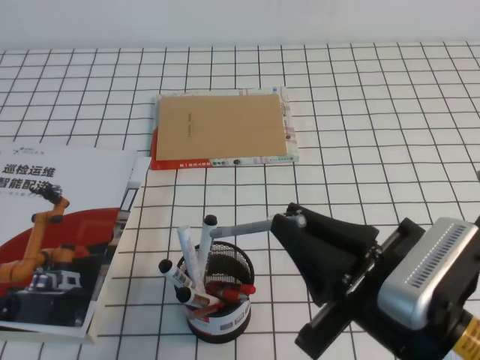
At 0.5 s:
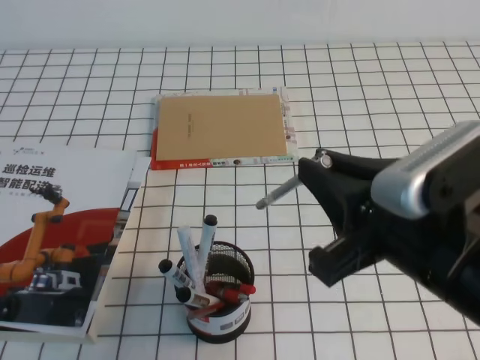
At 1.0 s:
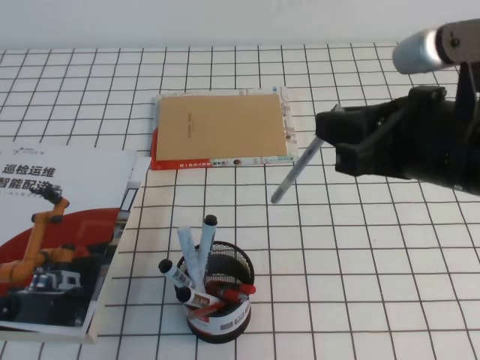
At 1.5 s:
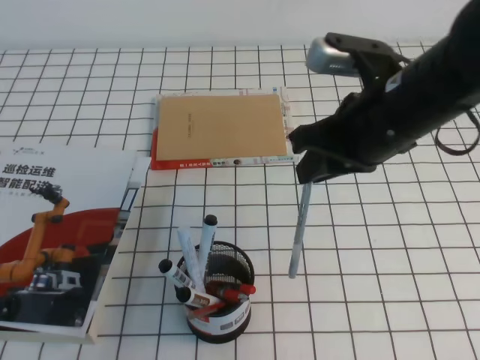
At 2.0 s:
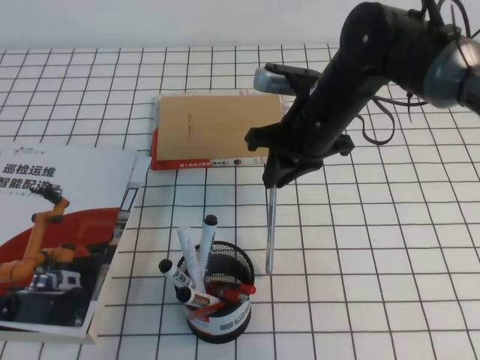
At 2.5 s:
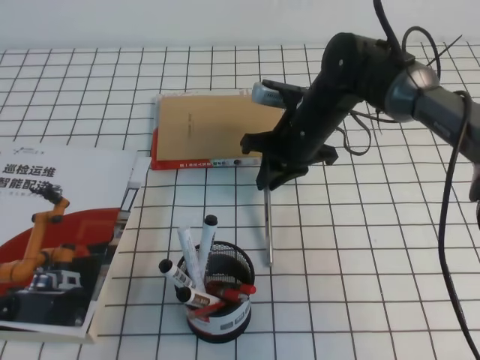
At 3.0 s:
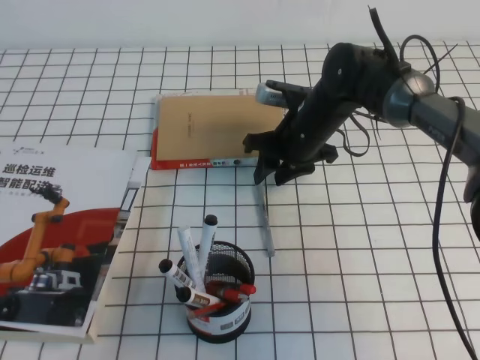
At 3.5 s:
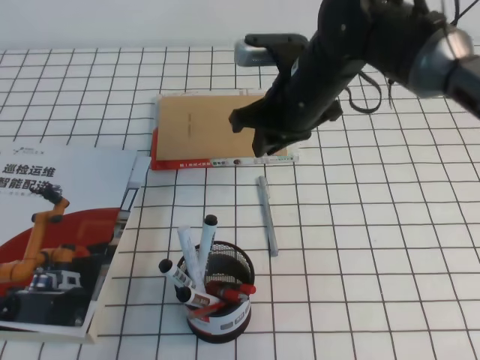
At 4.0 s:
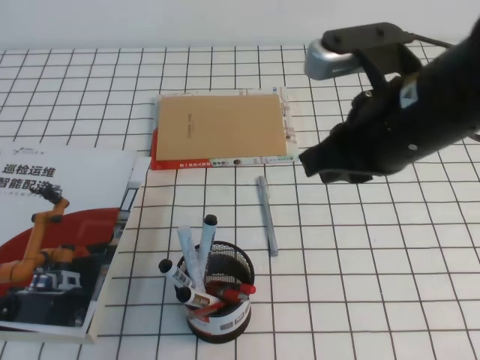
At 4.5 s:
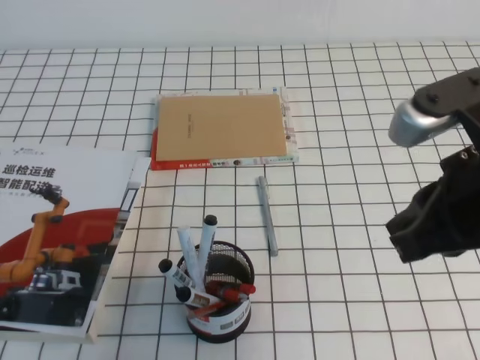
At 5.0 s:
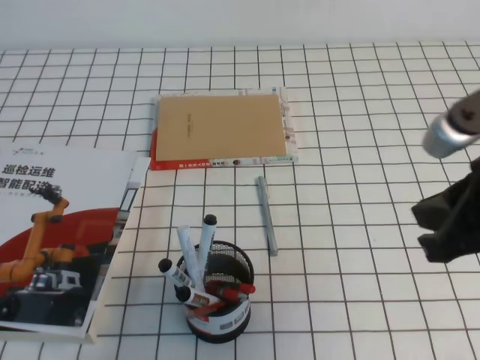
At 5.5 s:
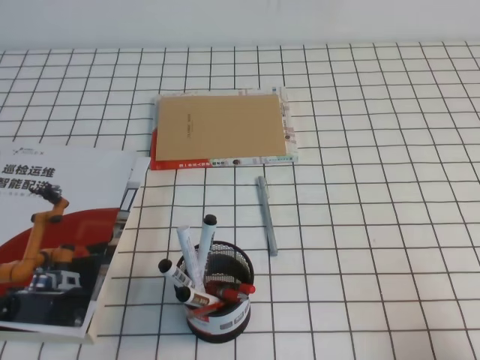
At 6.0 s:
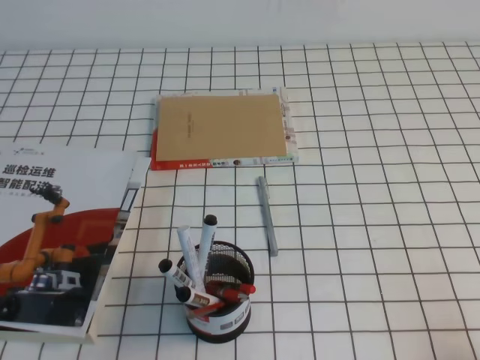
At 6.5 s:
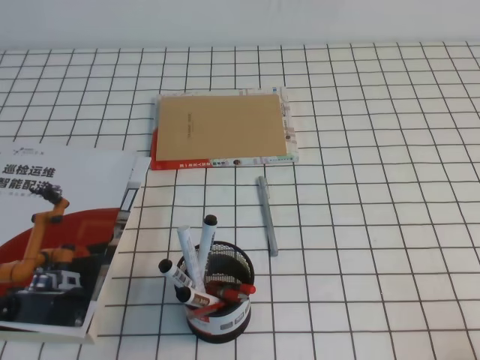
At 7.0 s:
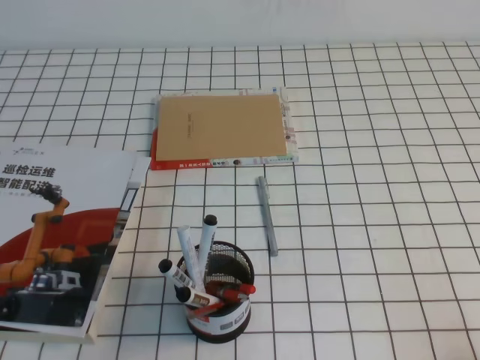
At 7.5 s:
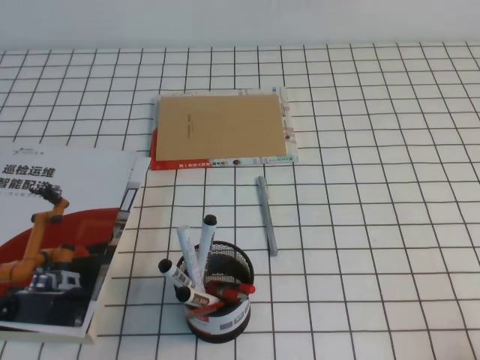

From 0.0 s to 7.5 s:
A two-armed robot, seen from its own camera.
Step, from 0.0 s to 7.5 s: Pick up the pen from the pen holder.
From 0.0 s to 2.0 s: The right gripper goes some 25 cm forward.
From 2.0 s to 4.0 s: The right gripper moves backward and upward, approximately 15 cm, and opens and closes again.
From 4.0 s to 5.5 s: The right gripper is displaced to the right, backward and downward by roughly 25 cm.

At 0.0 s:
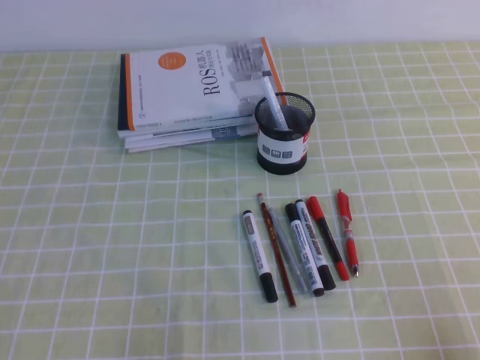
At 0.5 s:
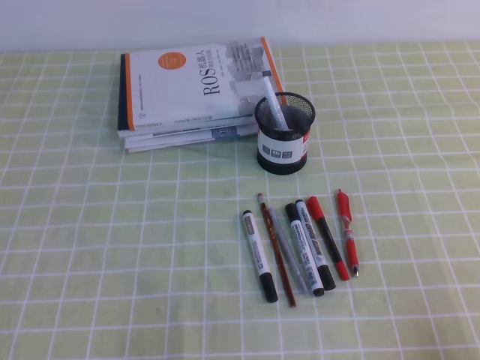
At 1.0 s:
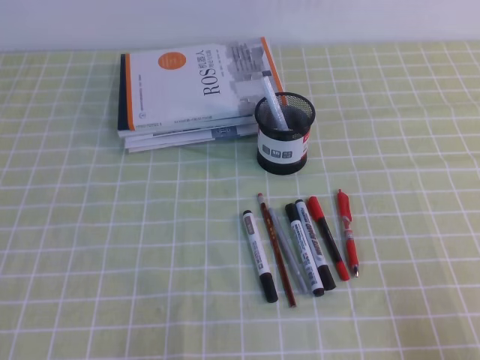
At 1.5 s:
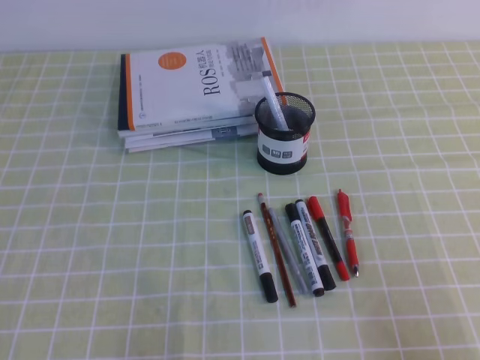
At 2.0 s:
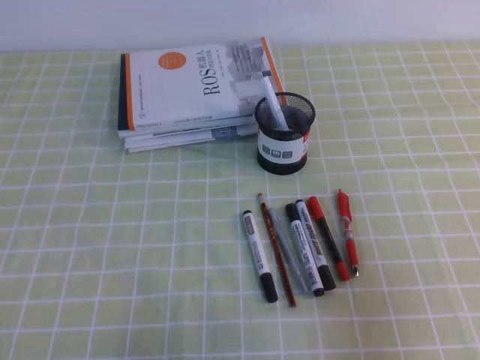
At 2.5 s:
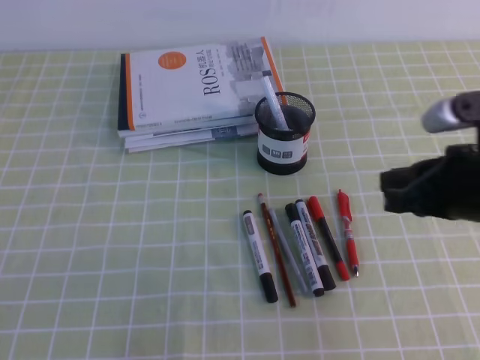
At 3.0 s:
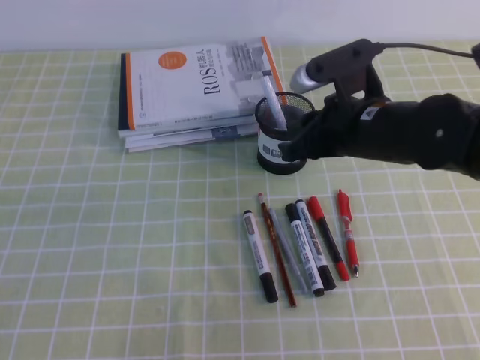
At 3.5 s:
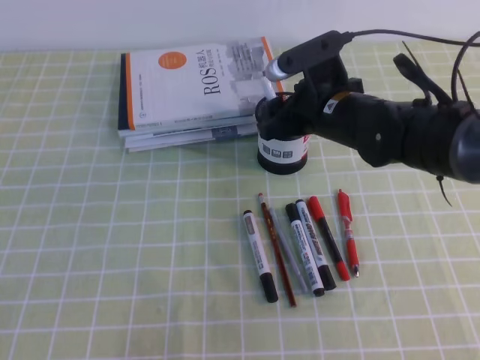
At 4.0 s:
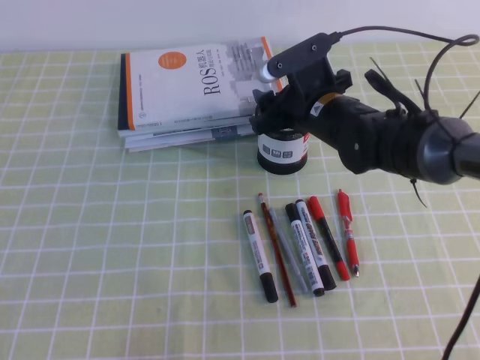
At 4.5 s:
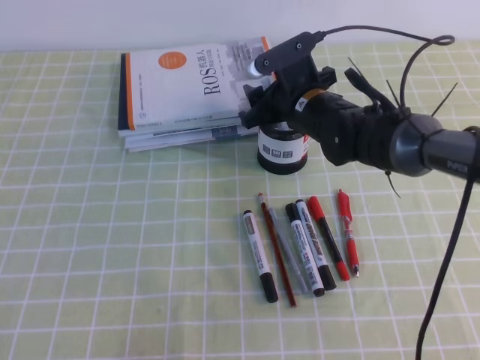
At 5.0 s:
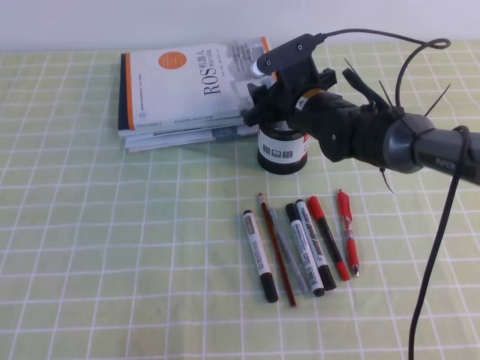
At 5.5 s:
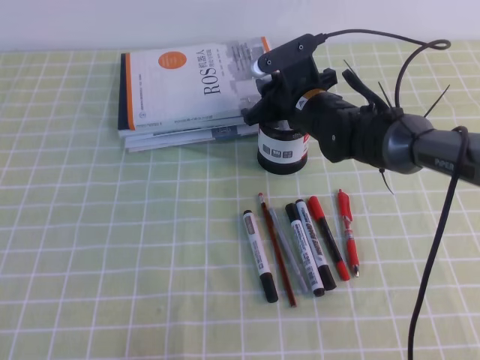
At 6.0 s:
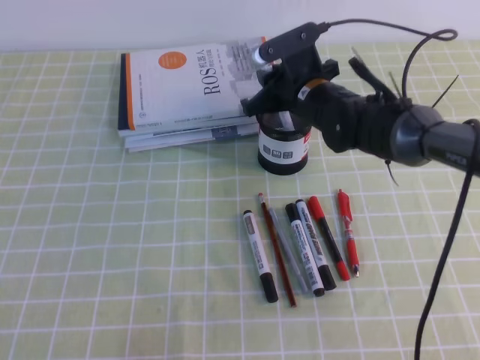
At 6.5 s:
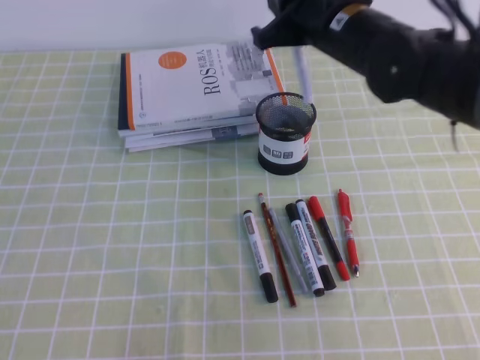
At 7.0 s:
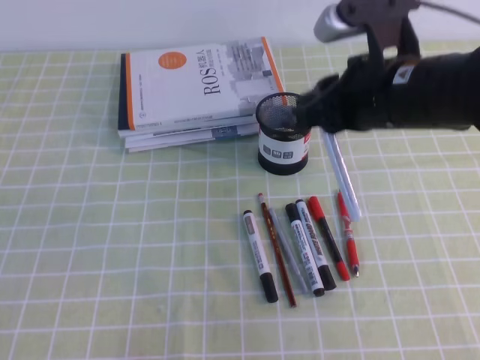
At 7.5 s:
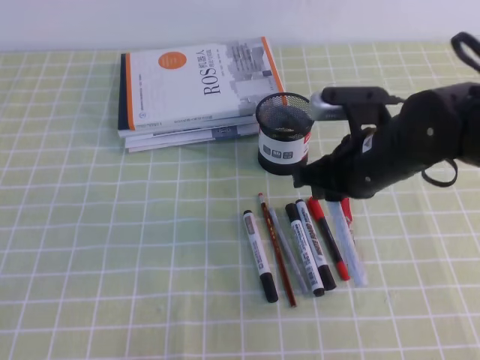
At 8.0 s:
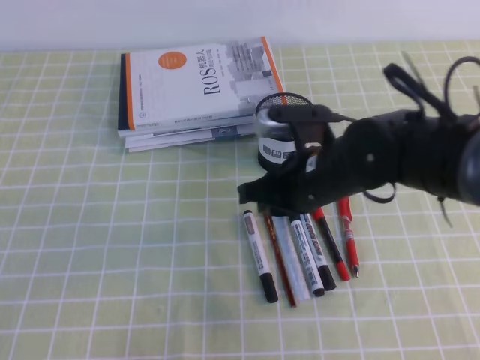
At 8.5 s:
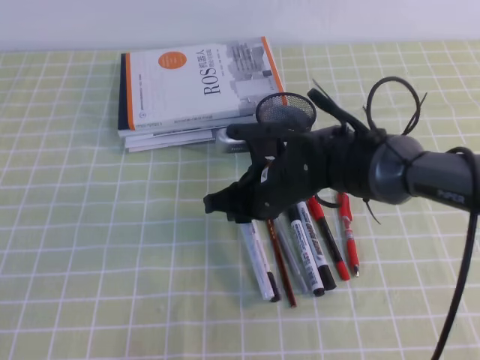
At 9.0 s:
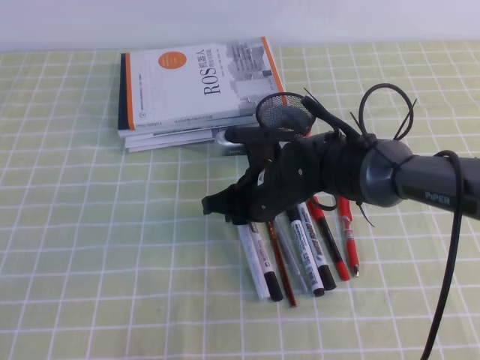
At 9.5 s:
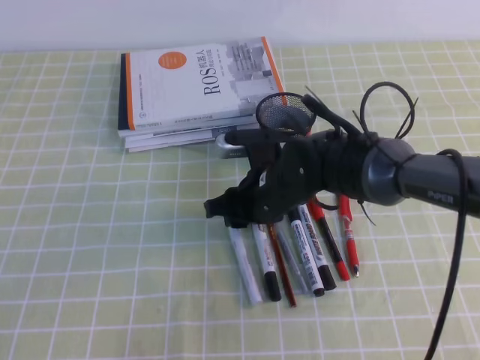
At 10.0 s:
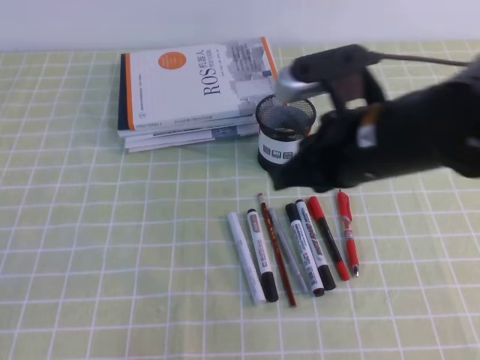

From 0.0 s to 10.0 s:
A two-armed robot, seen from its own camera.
From 0.0 s to 2.0 s: The right gripper is displaced upward and forward by roughly 10 cm.
From 2.0 s to 4.0 s: The right gripper shifts some 35 cm forward and to the left, and opens its fingers.
From 4.0 s to 6.0 s: The right gripper closes.
From 6.0 s to 8.0 s: The right gripper travels backward by about 15 cm.
From 8.0 s to 10.0 s: The right gripper heads upward, covering roughly 10 cm.

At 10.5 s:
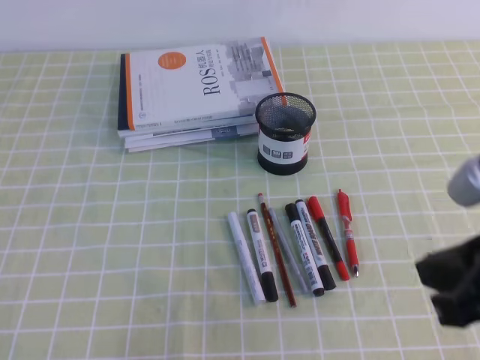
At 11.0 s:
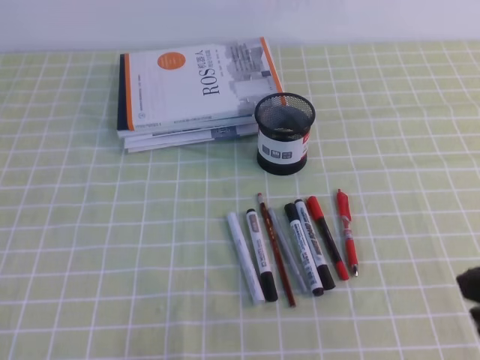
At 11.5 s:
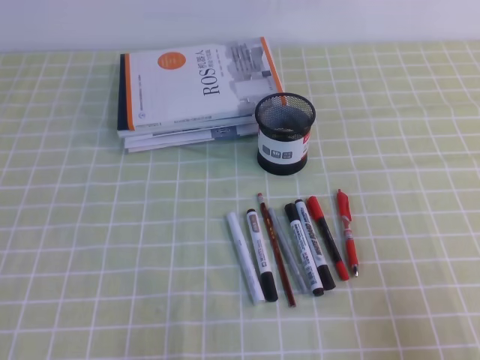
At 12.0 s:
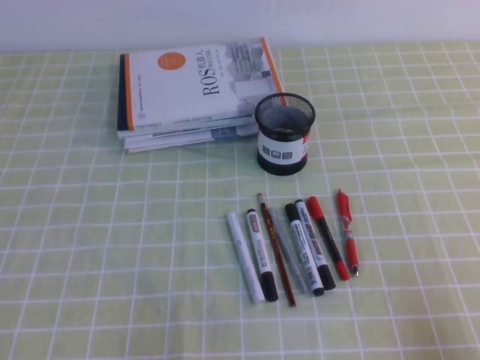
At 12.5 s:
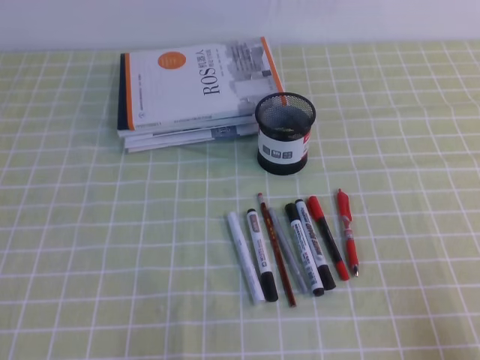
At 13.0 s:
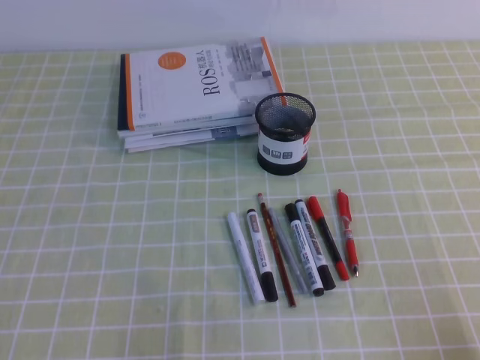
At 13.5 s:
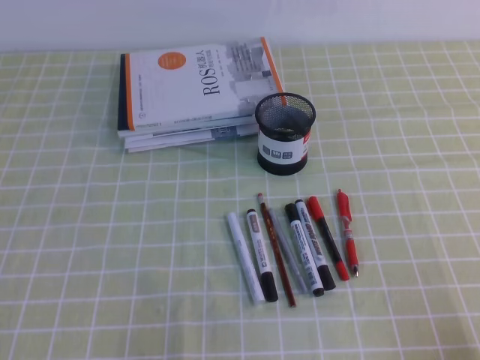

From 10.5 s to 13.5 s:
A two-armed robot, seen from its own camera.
Step, from 10.5 s to 13.5 s: Pick up the pen from the pen holder.
From 10.5 s to 12.0 s: The right gripper shifts roughly 20 cm downward, to the right and backward.
